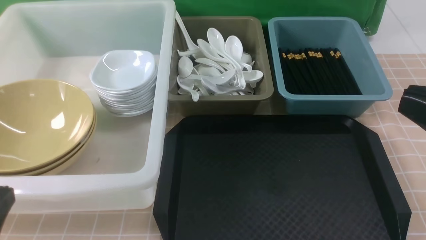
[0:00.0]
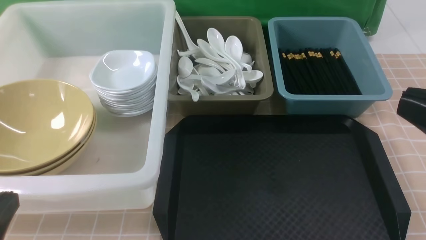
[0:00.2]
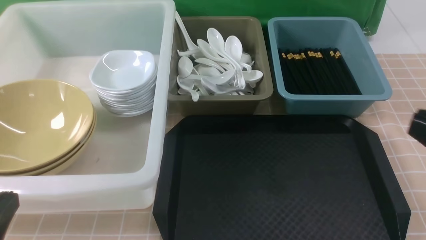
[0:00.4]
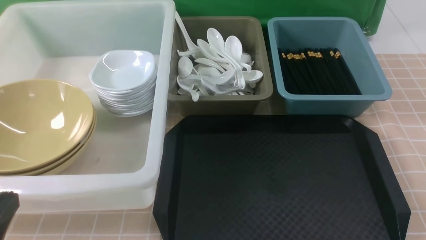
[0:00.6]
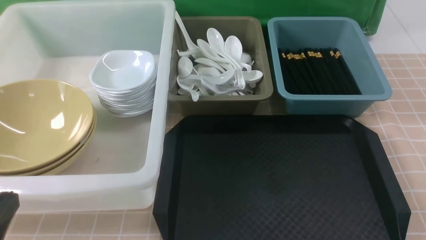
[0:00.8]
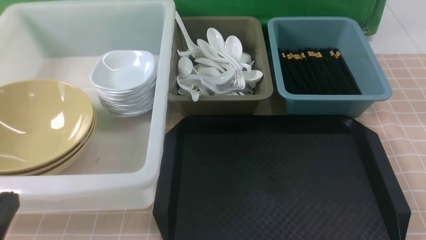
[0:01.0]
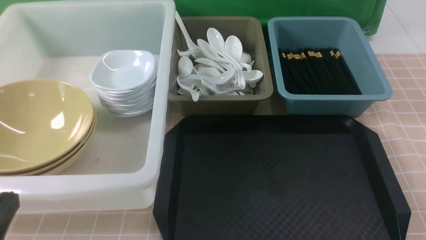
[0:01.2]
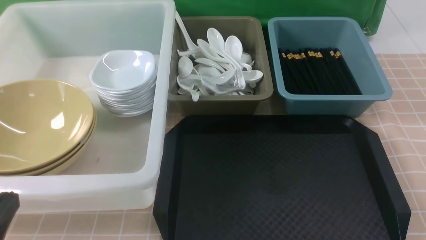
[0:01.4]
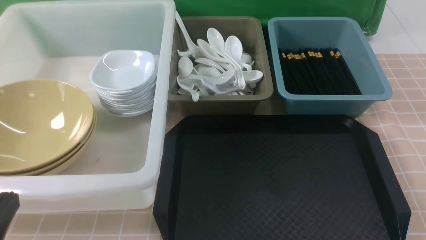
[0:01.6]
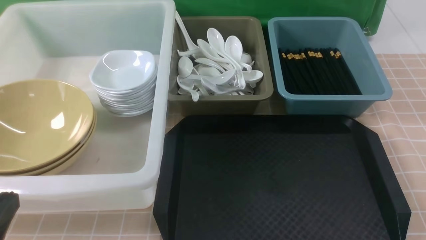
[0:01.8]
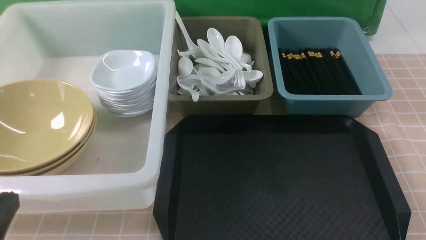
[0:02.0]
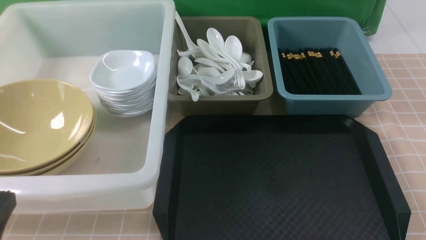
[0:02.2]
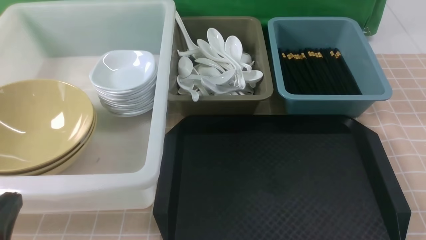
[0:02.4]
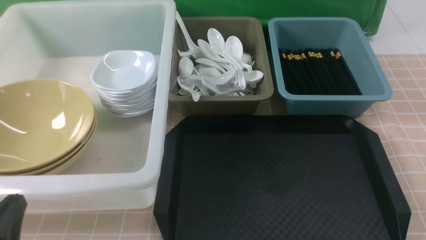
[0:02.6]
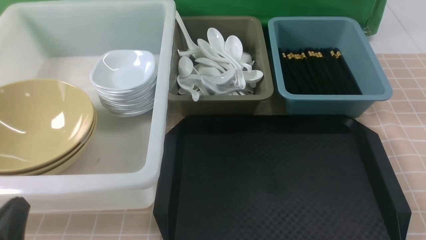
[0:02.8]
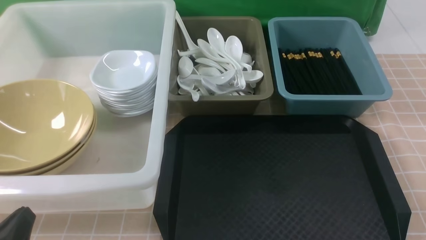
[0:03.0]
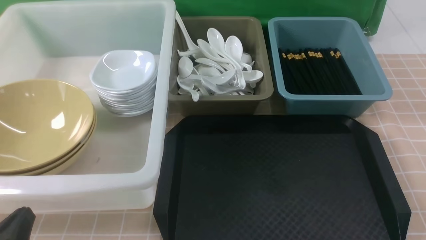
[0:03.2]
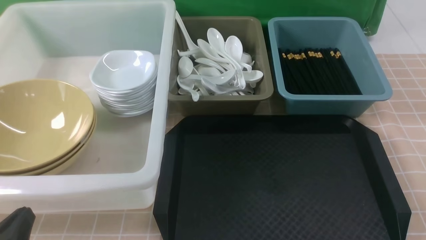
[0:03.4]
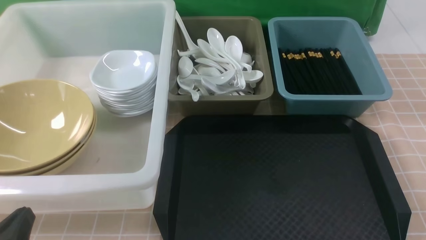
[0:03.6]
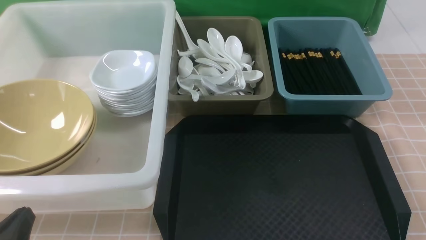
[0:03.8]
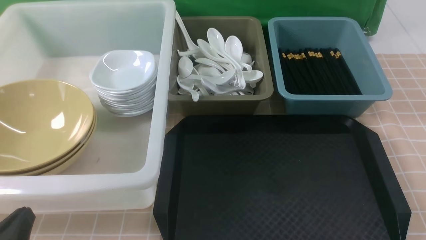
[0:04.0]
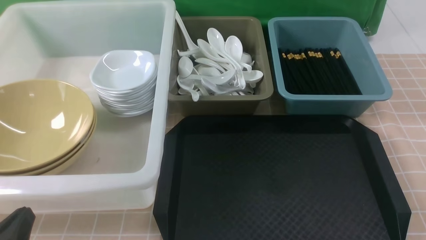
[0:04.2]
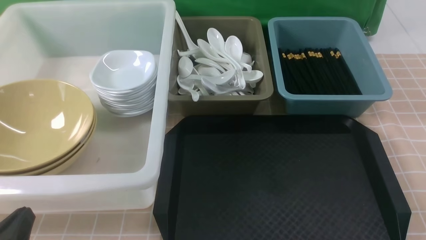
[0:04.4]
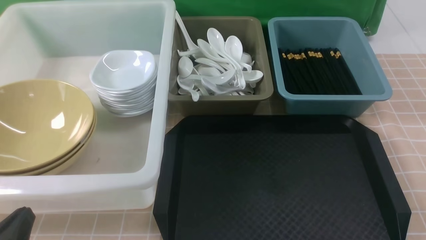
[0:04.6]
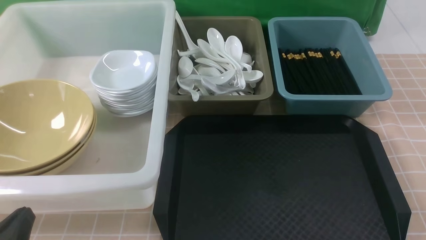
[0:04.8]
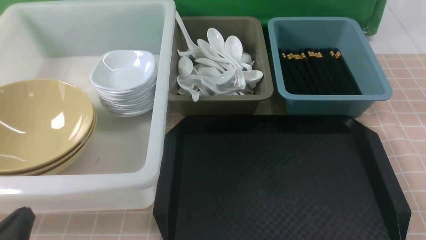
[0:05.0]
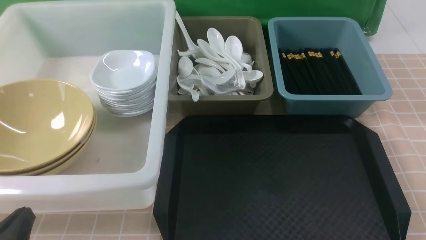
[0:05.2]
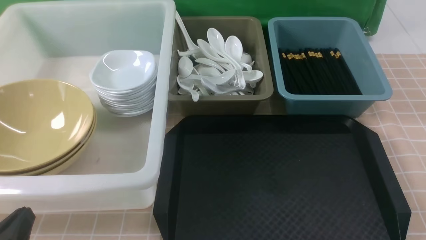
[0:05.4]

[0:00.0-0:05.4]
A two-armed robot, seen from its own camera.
Task of the whole recording: on brown table put chopsticks spoon bowls plates into blue grey white boxes.
0:00.0 to 0:01.4: The right gripper moves downward and to the right, about 20 cm.
0:01.4 to 0:02.8: The left gripper shifts some 5 cm downward.
0:02.8 to 0:05.4: Both grippers stay put.
